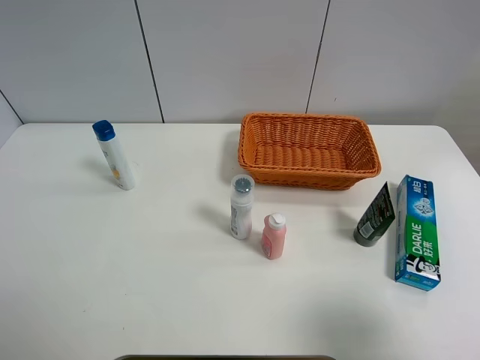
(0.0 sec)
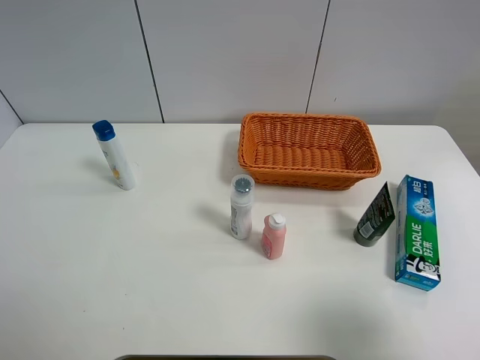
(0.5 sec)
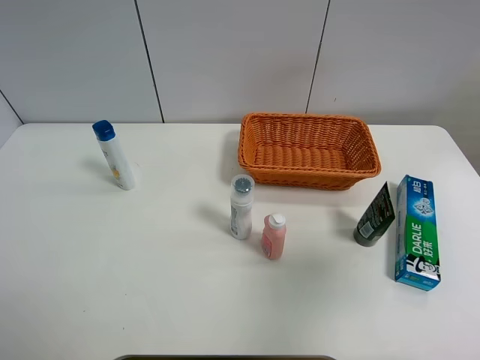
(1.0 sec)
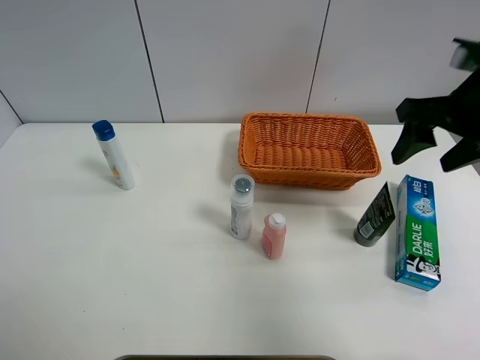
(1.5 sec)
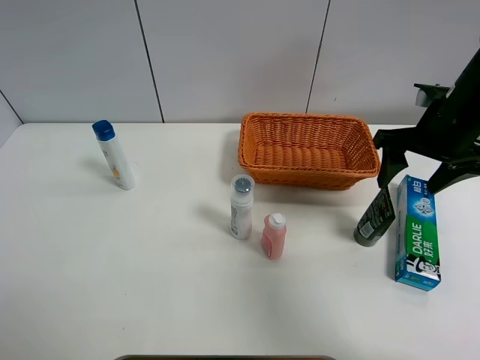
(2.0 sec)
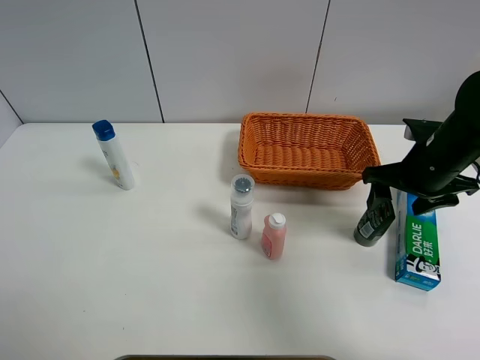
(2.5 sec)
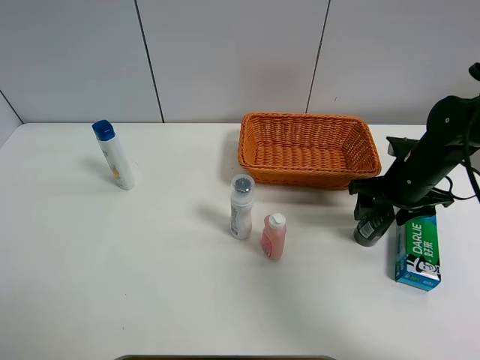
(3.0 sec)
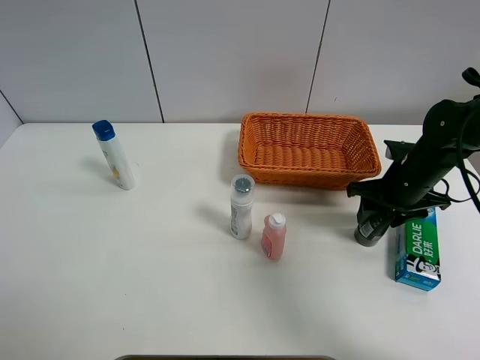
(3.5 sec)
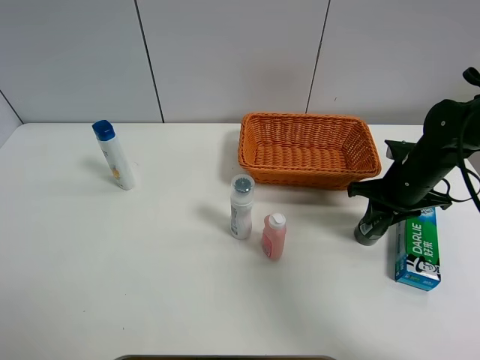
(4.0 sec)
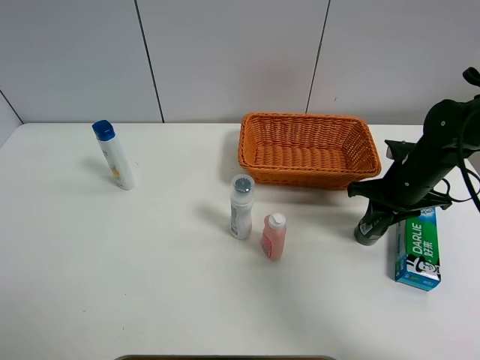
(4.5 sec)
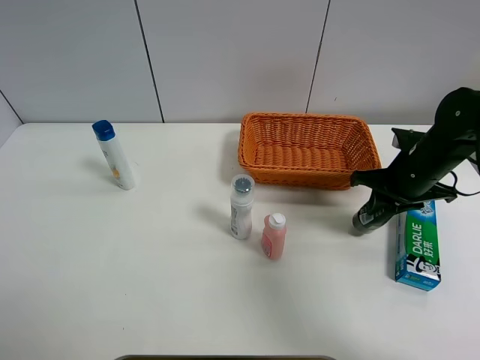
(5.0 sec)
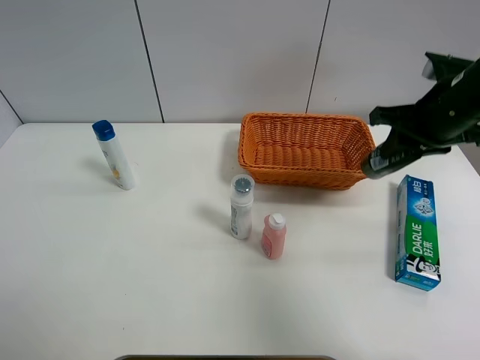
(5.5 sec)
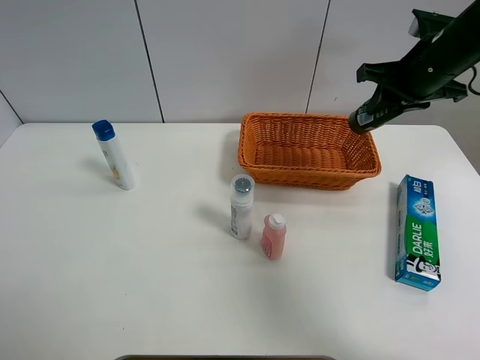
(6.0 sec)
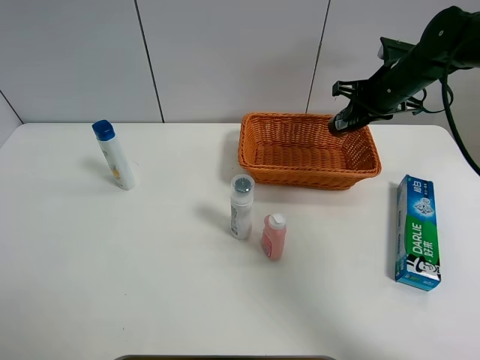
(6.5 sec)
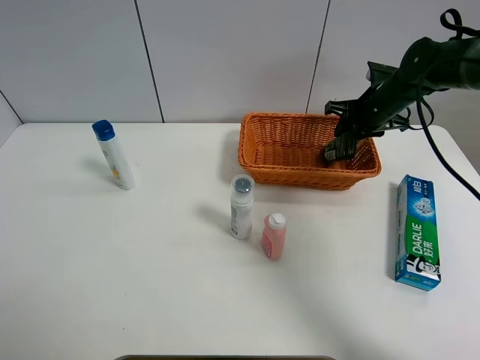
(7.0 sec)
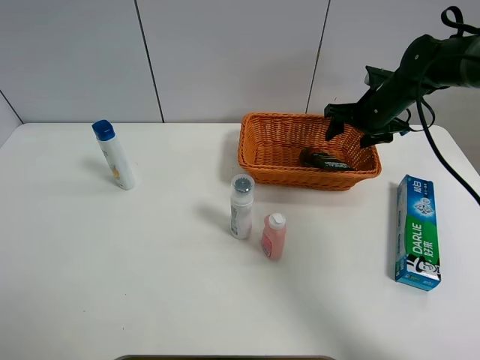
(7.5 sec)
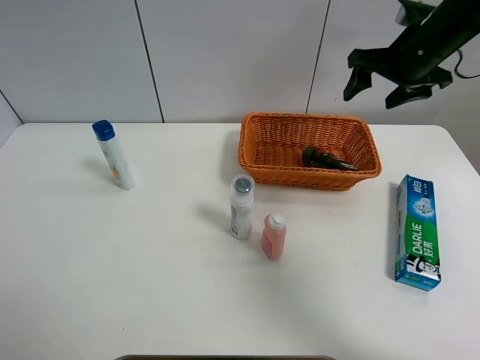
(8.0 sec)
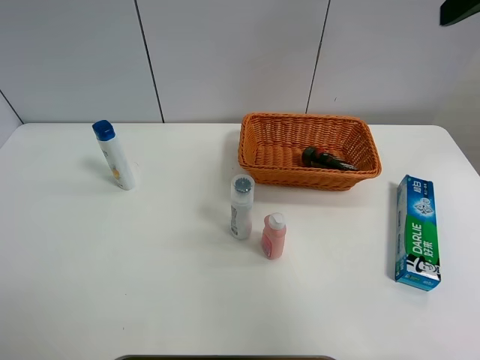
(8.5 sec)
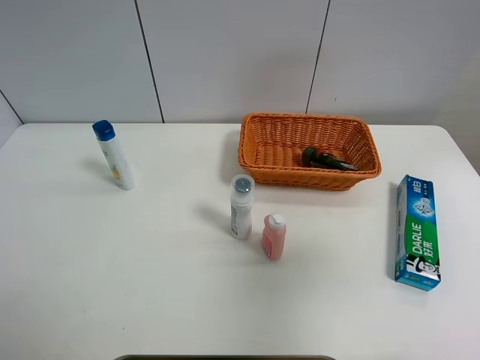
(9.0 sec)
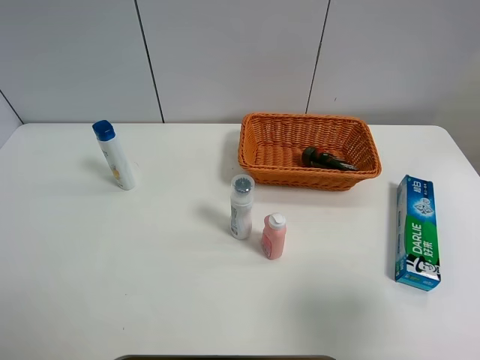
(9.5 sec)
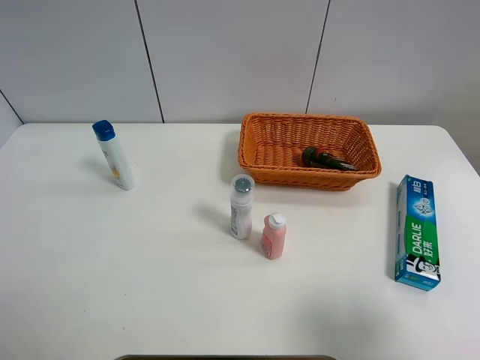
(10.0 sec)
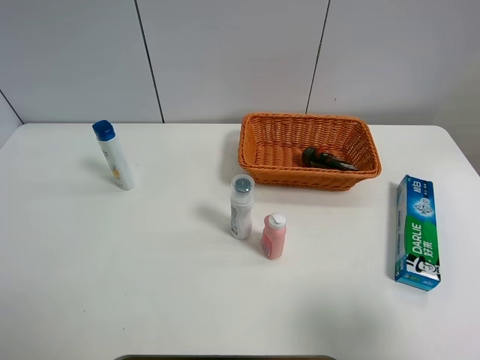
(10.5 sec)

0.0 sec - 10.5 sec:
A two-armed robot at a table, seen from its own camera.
Task of the whole recording: Place the object closest to the toothpaste in the basket.
Step, 0.0 sec - 4.0 sec: Grasp the soft facial cleanser with right gripper.
Step, 4.5 sec - 7.5 sec: Place the soft facial cleanser in the basket with right gripper.
0.0 sec - 2.0 sec: The right gripper travels forward by some 30 cm.
2.0 sec - 4.0 sec: The right gripper travels downward by some 10 cm, and closes up.
4.0 sec - 6.5 sec: The right gripper travels forward and upward by approximately 15 cm.
6.5 sec - 8.5 sec: The right gripper moves upward and backward, about 30 cm, and opens its fingers.
8.5 sec - 10.5 sec: The right gripper travels backward and downward by about 30 cm.

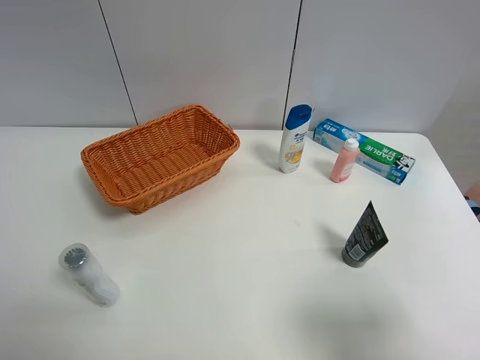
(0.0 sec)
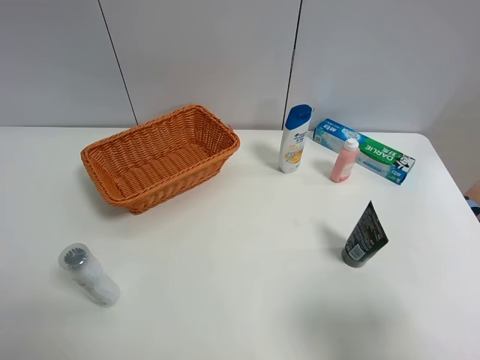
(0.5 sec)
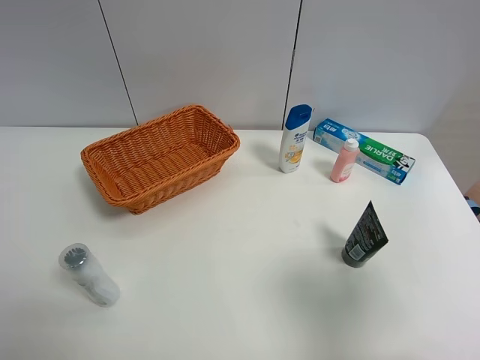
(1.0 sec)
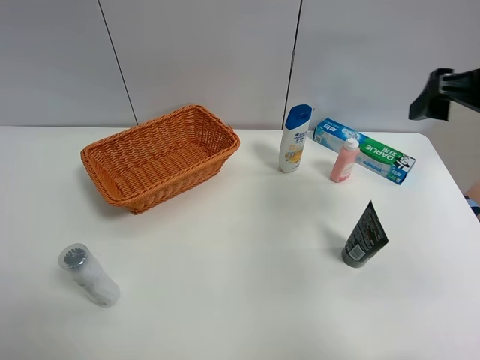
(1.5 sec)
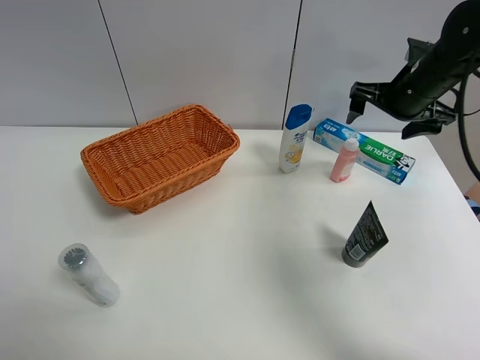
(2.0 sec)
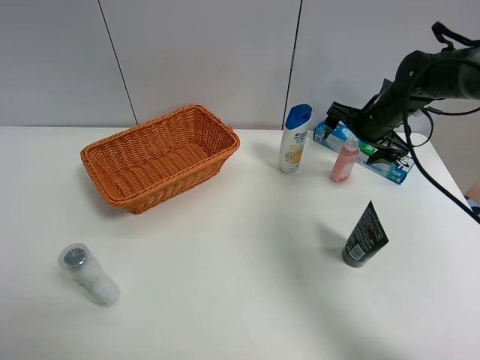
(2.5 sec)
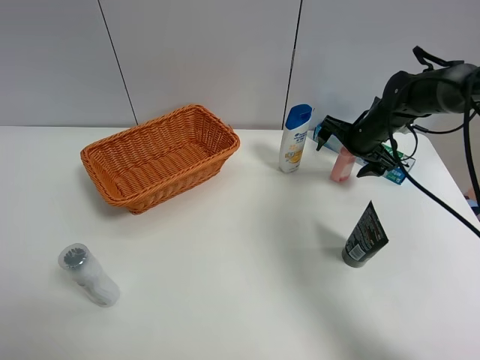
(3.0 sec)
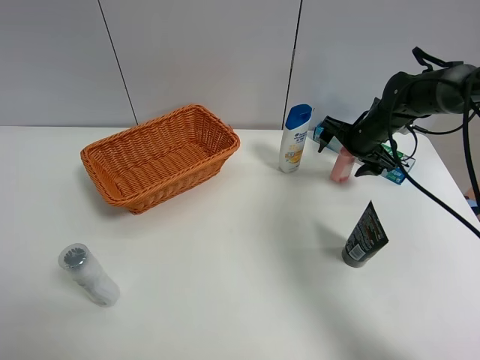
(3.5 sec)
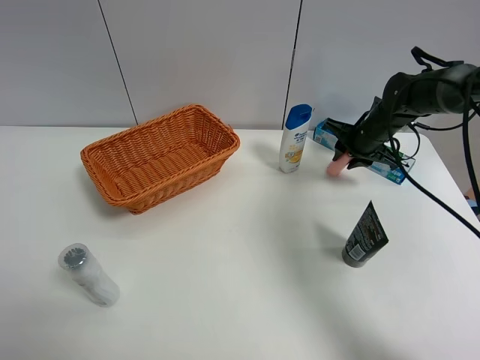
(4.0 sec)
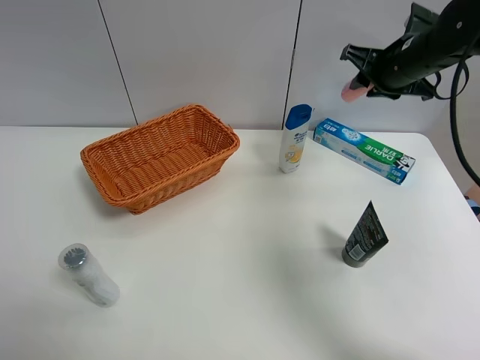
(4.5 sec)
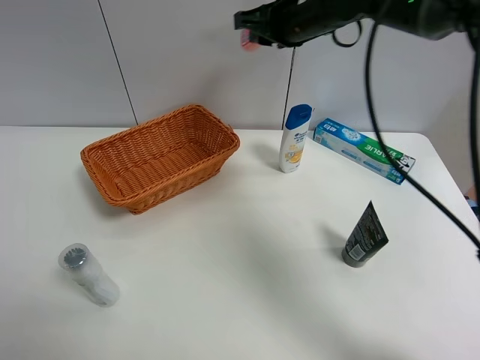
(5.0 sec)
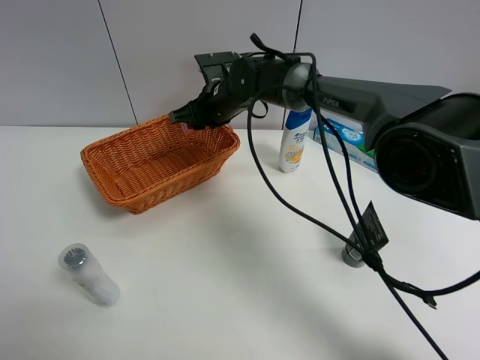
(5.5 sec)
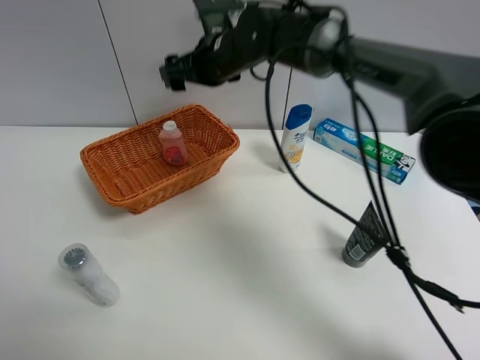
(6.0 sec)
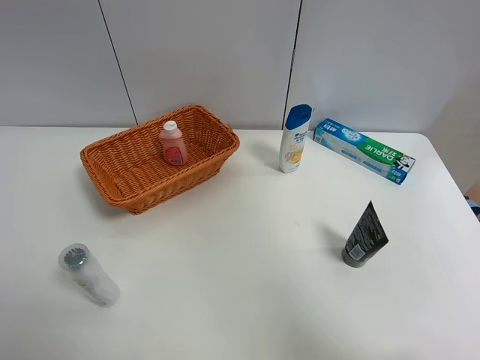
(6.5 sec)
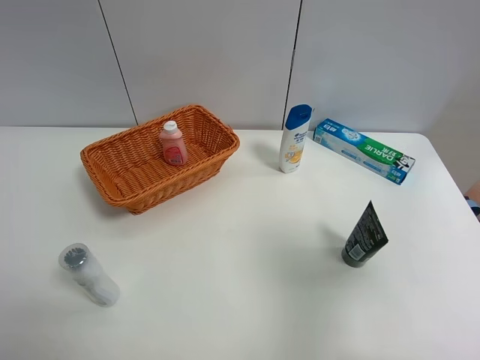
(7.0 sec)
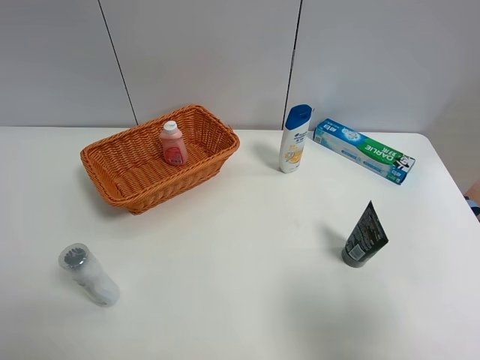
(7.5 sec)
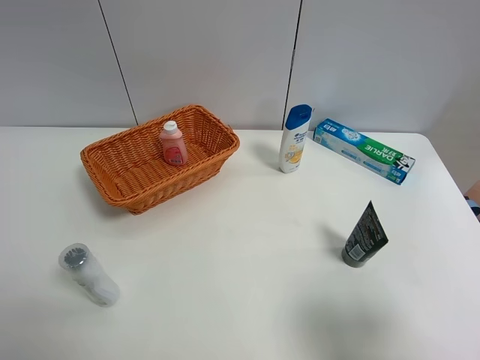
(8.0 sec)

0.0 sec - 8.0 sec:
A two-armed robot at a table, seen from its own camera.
Task of the whole recording: Place the object closest to the toothpaste in the basket.
Step, 0.0 sec - 3.5 sec: Grasp the pink laundry detergent with right gripper.
Step, 4.0 sec - 6.0 sec: Place the pink laundry detergent in the basket with right gripper.
0.0 sec - 2.0 sec: The right gripper goes roughly 40 cm forward.
2.0 sec - 4.0 sec: The right gripper heads downward, covering approximately 10 cm, and closes up.
4.0 sec - 6.0 sec: The right gripper goes roughly 30 cm to the left and upward, and opens.
6.0 sec - 8.0 sec: The right gripper is displaced backward and to the right by about 50 cm.
